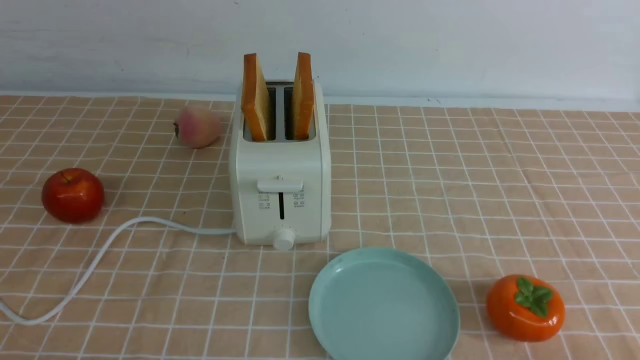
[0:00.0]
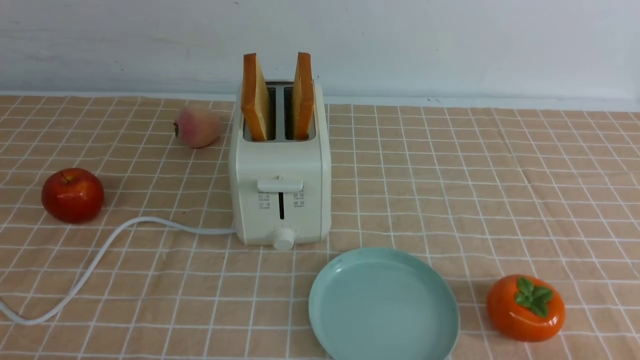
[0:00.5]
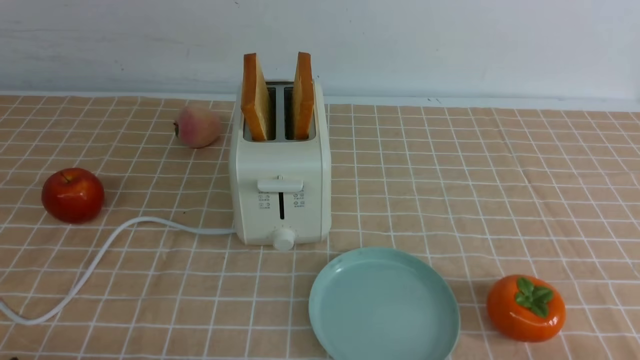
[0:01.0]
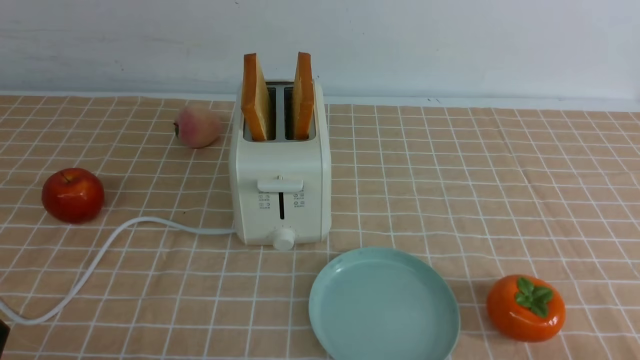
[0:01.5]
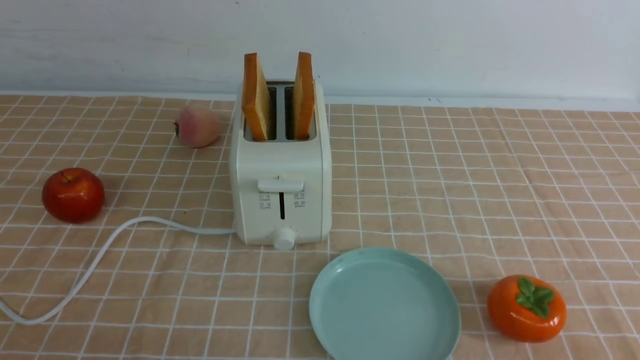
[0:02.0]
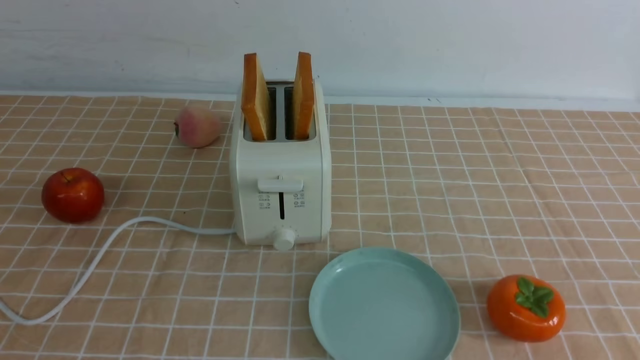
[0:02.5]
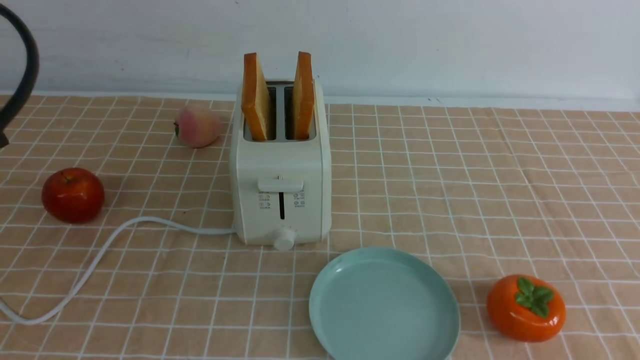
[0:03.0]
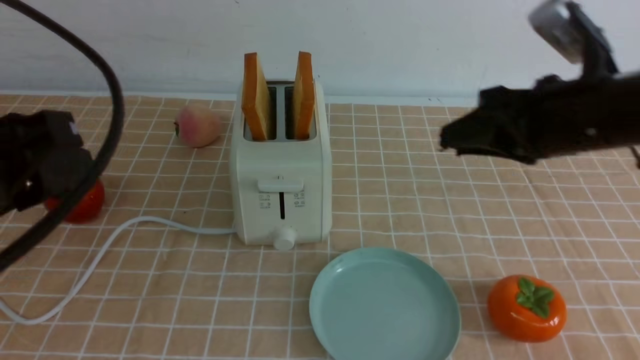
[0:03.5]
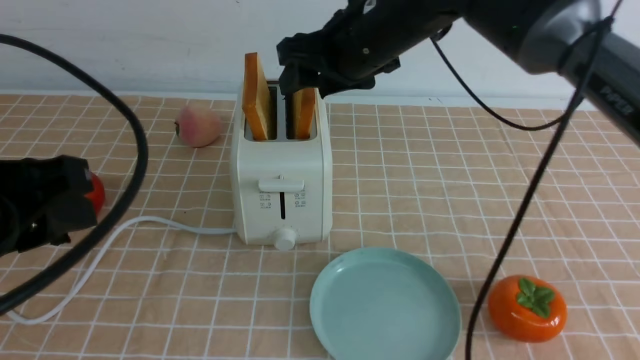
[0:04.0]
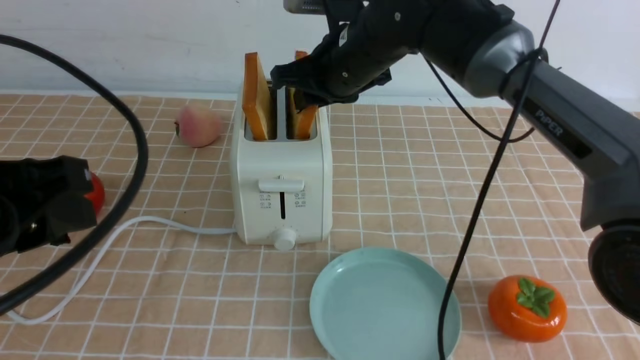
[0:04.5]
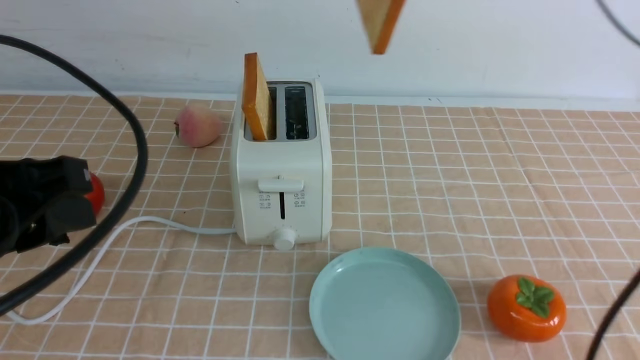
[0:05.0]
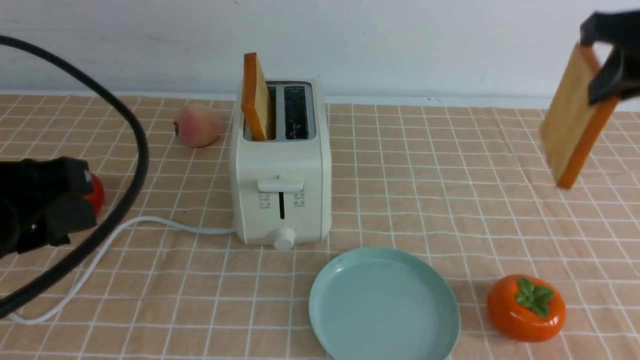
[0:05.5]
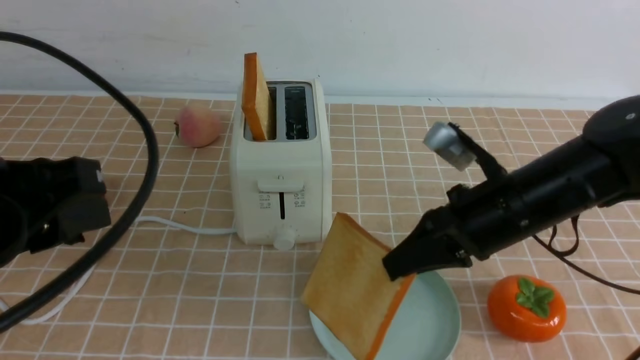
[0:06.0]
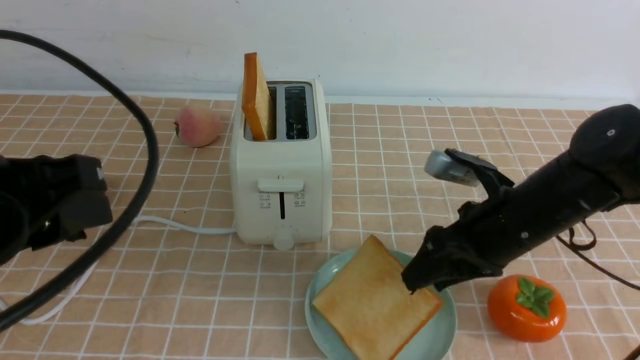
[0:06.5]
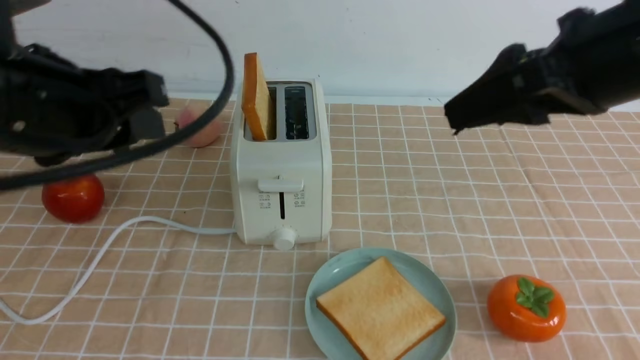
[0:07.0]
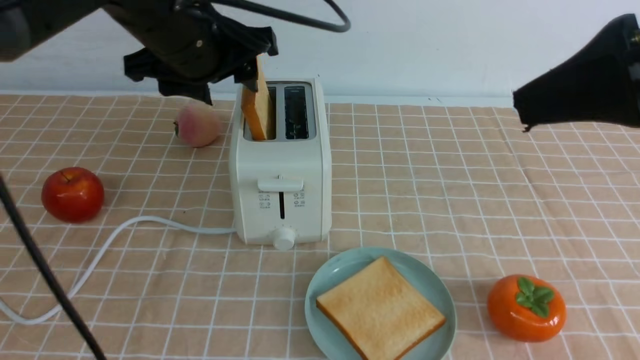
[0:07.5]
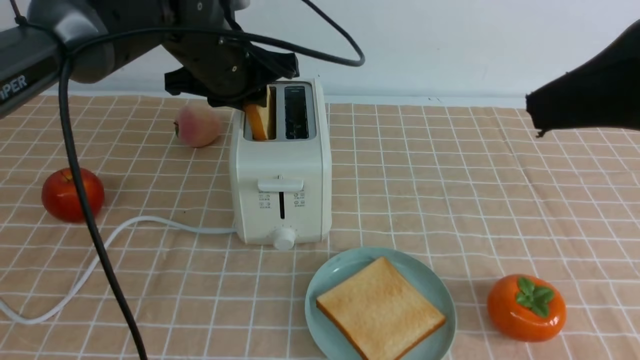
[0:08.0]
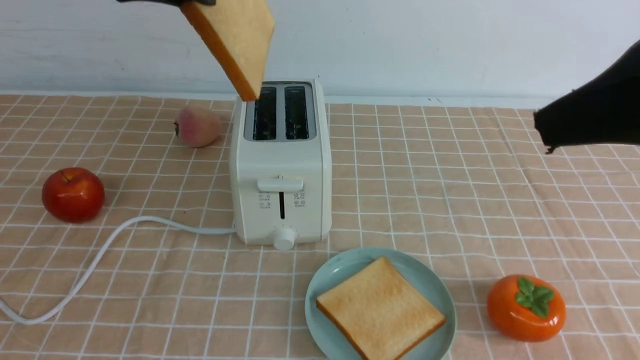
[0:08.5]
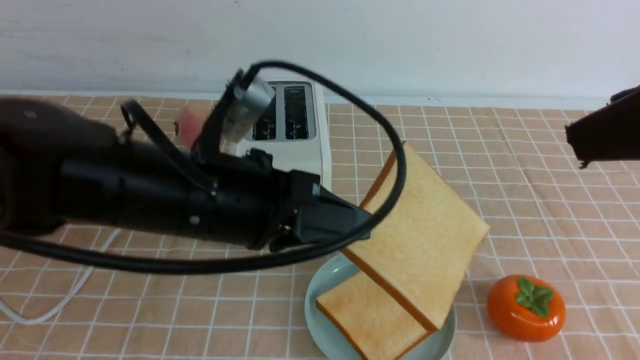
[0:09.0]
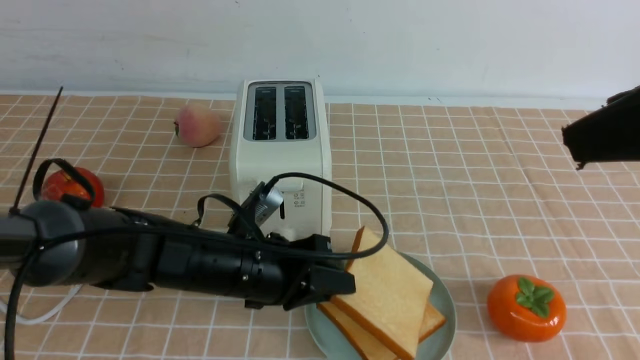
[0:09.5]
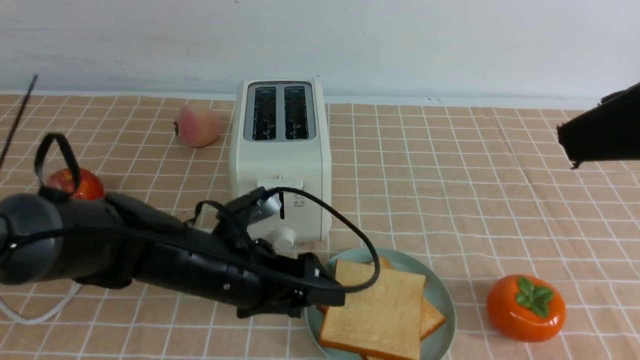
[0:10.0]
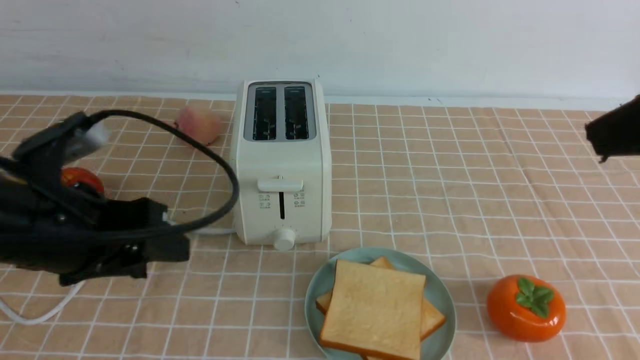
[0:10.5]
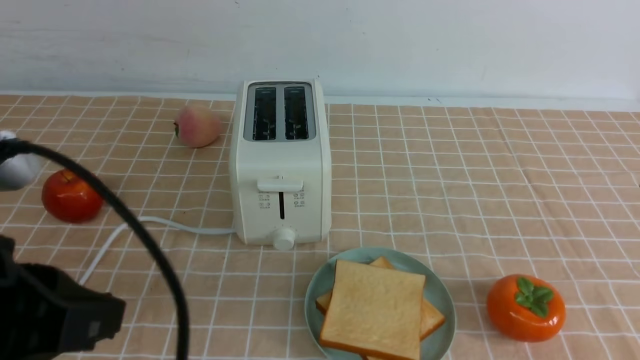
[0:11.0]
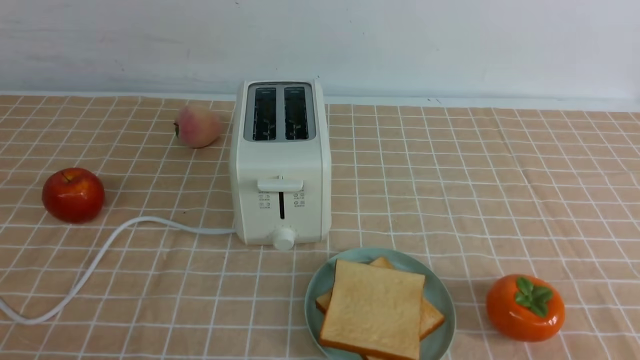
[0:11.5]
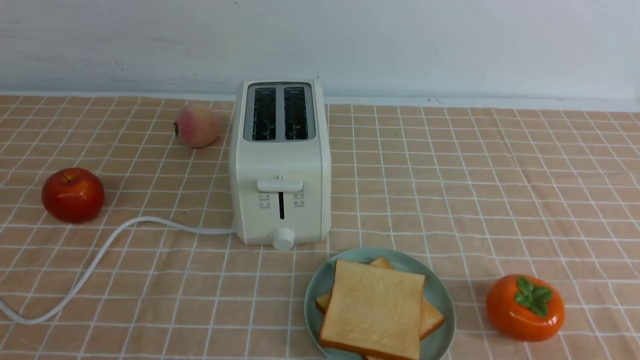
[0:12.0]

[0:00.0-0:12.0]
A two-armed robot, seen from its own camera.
Task of the whole recording: take toasted bread from bread machine on light coffee tablecloth place on plate.
Step, 0:00.0 to 0:04.5: use the right arm to take out a slice of bread.
Step, 0:05.0 to 0:06.5: use the right arm to put a slice of bread into the plate.
Step, 0:07.0 to 0:08.0: use the left arm to take out a slice of bread.
Step, 0:08.5 to 0:10.0: use the left arm to put a slice of bread into the empty plate.
0:02.0 to 0:04.0: The left gripper heads upward and forward, covering approximately 15 cm. Meanwhile the right gripper moves forward and to the left, some 40 cm.
0:04.0 to 0:06.0: The right gripper swings left and right, roughly 20 cm each way, with 2 reversals, and closes up.
0:06.0 to 0:08.0: The right gripper moves upward and backward, some 25 cm, and opens its fingers, while the left gripper goes about 25 cm forward.
0:08.0 to 0:10.0: The left gripper goes about 20 cm downward and backward, and closes and opens again.
0:10.0 to 0:12.0: The left gripper moves backward, upward and to the left, approximately 35 cm, and closes its fingers. Meanwhile the right gripper is displaced downward and backward by some 25 cm, and closes its fingers.

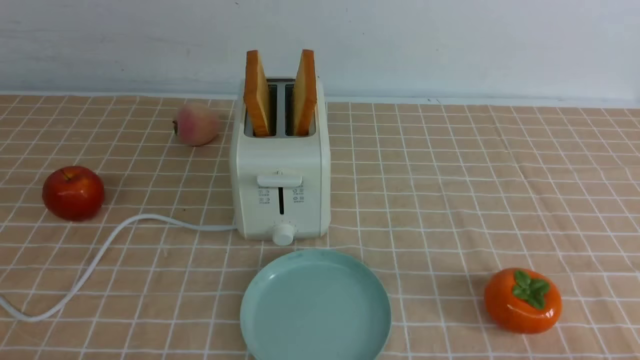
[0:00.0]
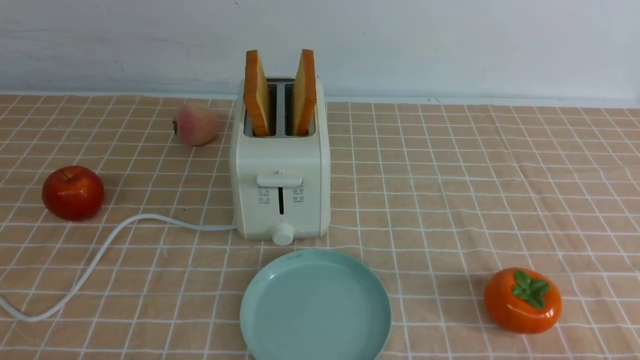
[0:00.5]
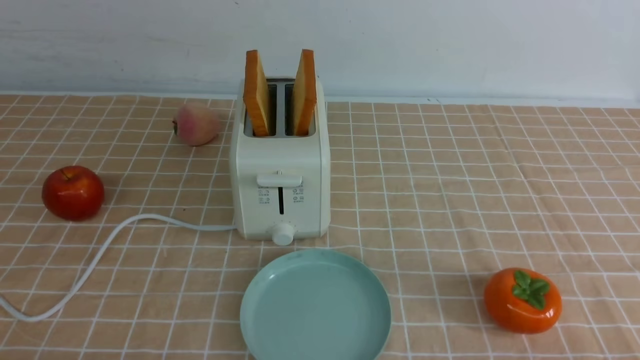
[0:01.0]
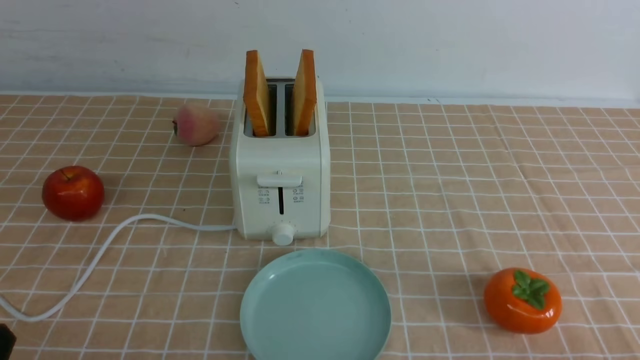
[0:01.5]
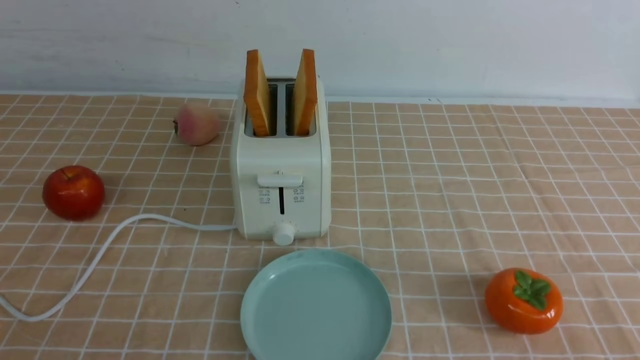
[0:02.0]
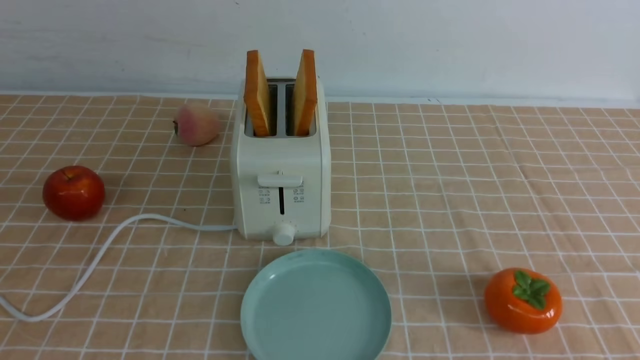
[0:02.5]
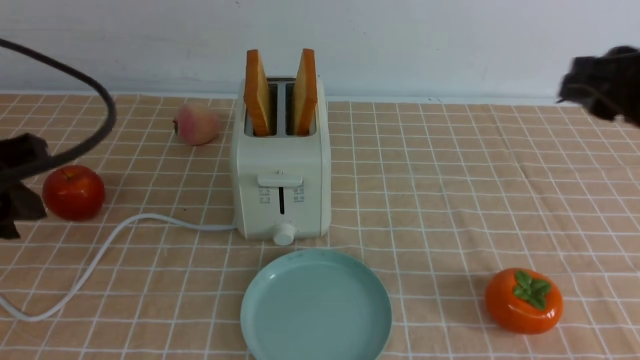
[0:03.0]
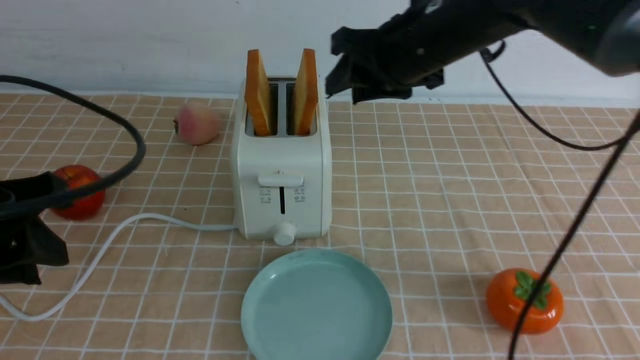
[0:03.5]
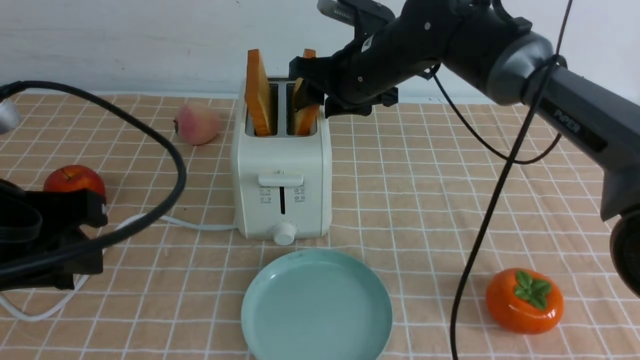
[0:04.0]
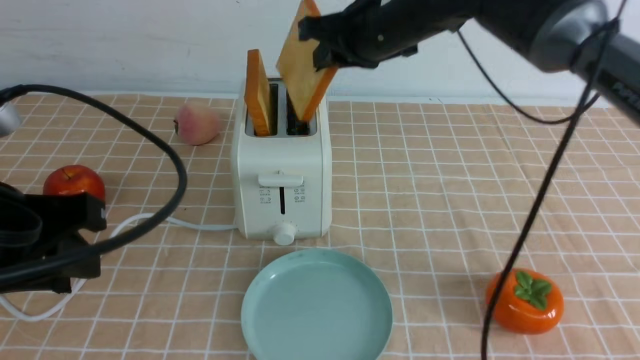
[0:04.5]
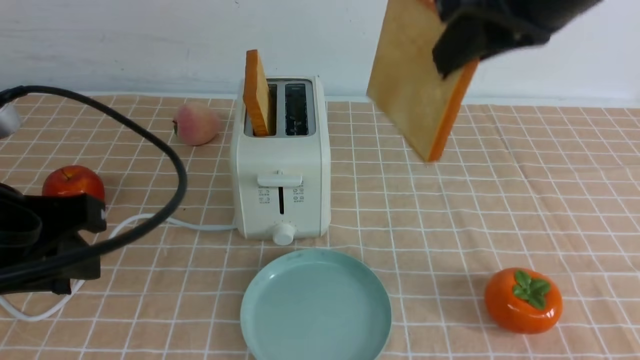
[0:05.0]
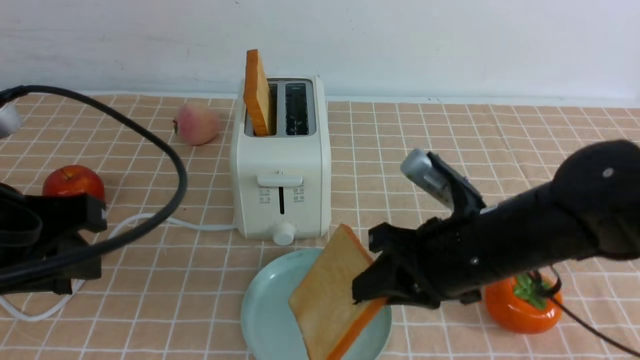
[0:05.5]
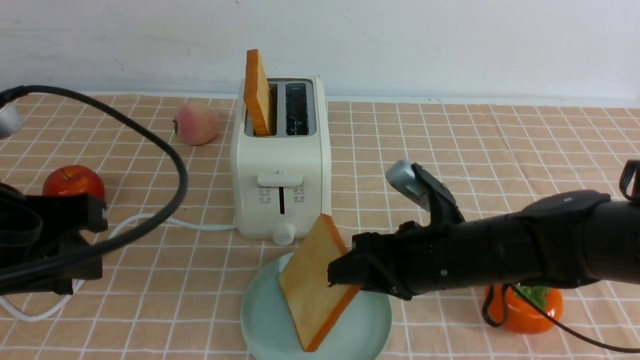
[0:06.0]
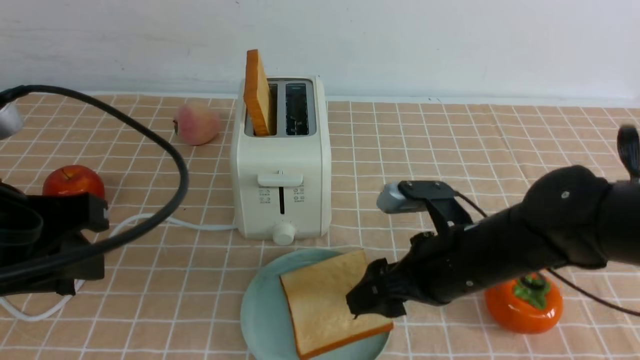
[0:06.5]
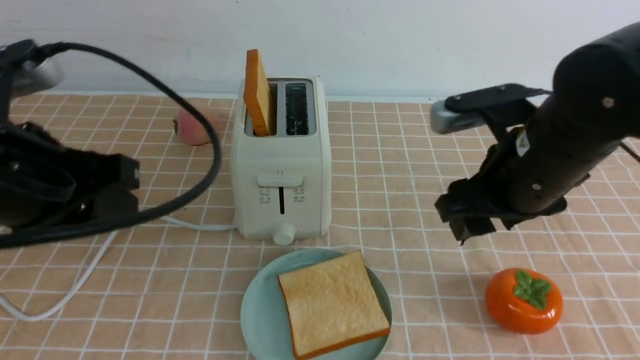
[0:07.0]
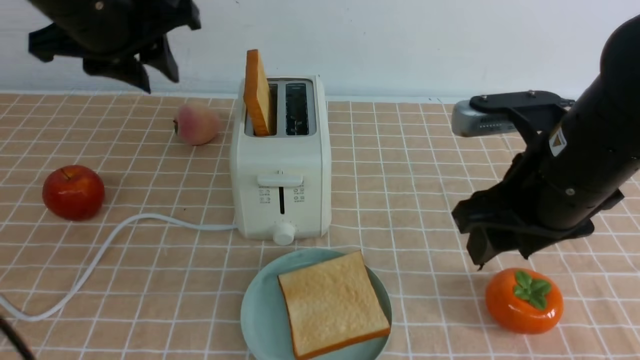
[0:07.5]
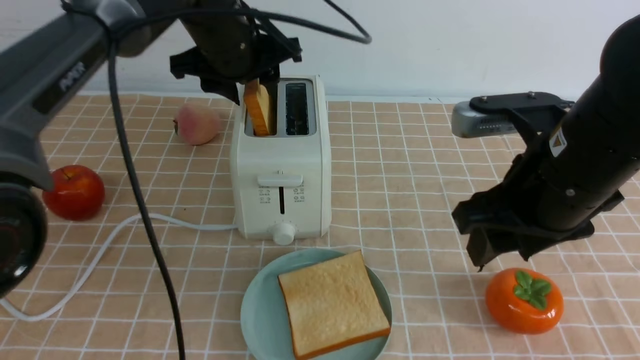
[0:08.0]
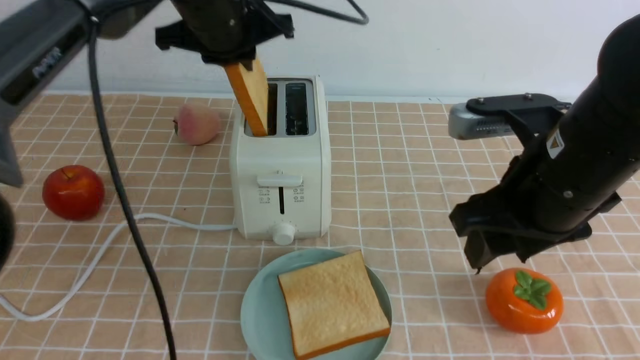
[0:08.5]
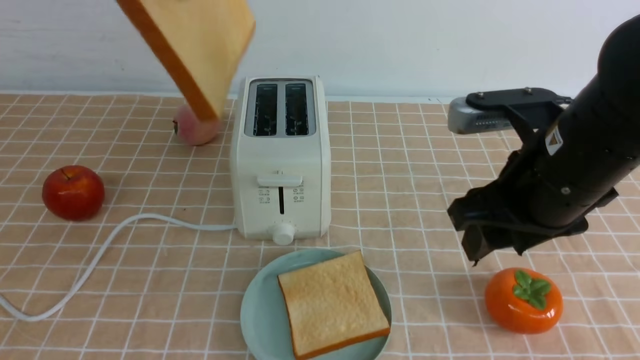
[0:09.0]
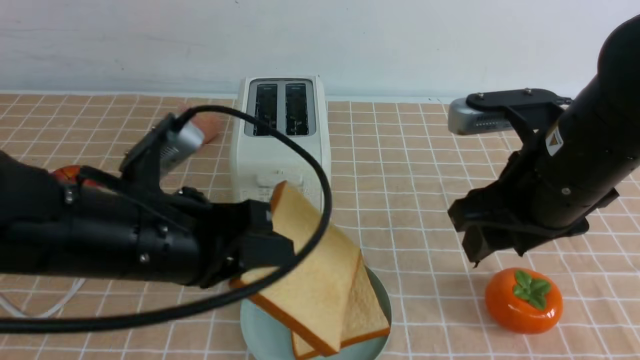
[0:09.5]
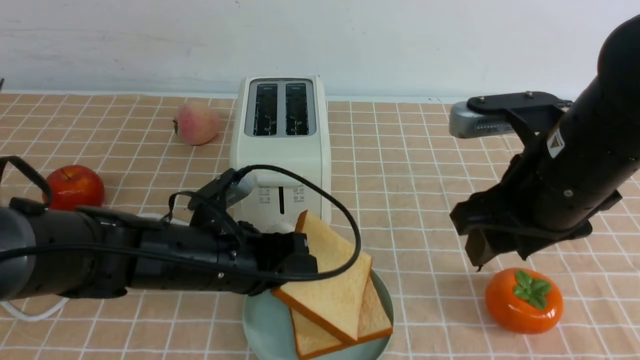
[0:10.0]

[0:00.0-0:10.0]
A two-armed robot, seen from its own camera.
Task of the whole recording: take toasted bread from bread machine on light coffee tablecloth place on plate.
Step, 0:00.0 to 0:04.5: use the right arm to take out a slice of bread.
Step, 0:05.0 to 0:06.5: use the right arm to put a slice of bread into the plate.
Step, 0:07.0 to 0:08.0: use the left arm to take out a slice of bread.
0:02.0 to 0:04.0: The left gripper goes about 15 cm forward. Meanwhile the right gripper shifts approximately 50 cm forward and to the left.
0:04.0 to 0:06.0: The right gripper heads backward and downward, covering roughly 20 cm.
0:06.0 to 0:08.0: The right gripper moves upward, approximately 15 cm. Meanwhile the left gripper moves forward and to the right, some 30 cm.
0:08.0 to 0:10.0: The left gripper goes roughly 25 cm backward and downward.
